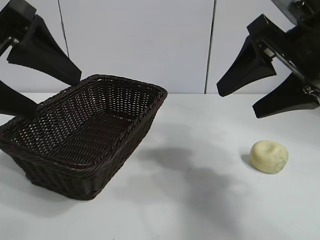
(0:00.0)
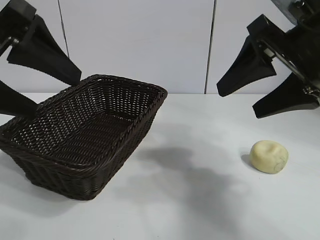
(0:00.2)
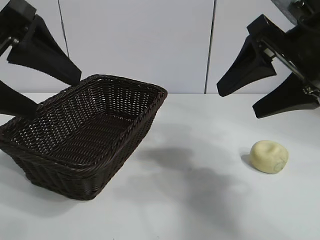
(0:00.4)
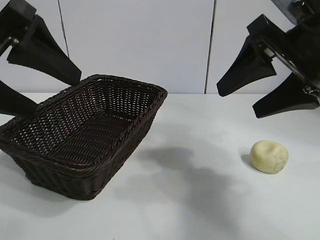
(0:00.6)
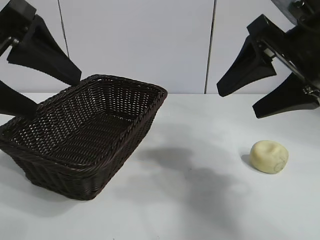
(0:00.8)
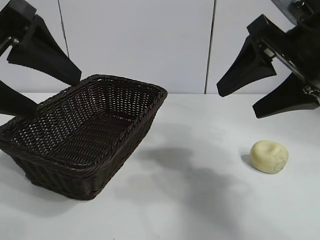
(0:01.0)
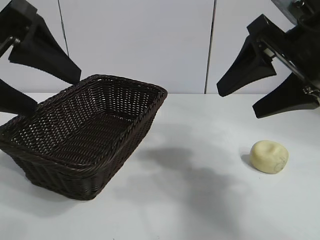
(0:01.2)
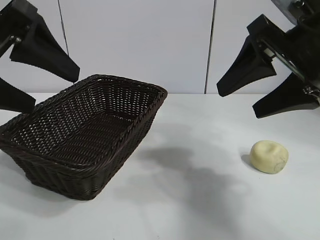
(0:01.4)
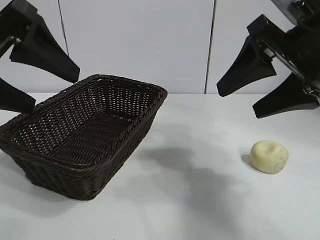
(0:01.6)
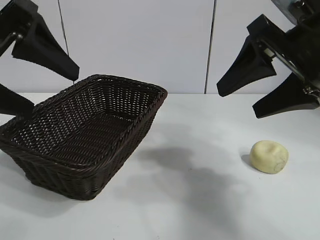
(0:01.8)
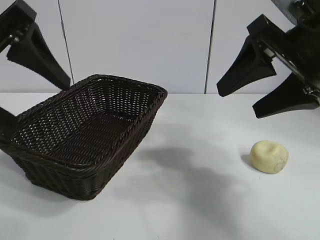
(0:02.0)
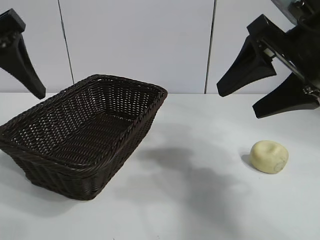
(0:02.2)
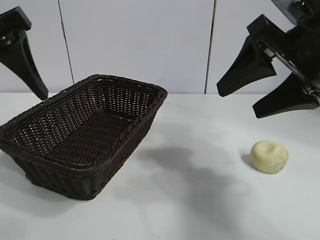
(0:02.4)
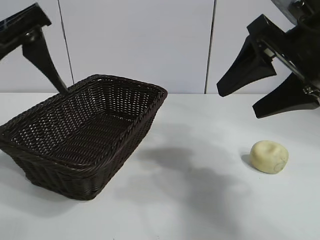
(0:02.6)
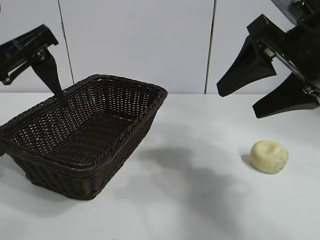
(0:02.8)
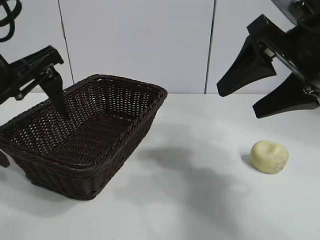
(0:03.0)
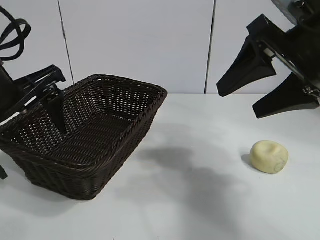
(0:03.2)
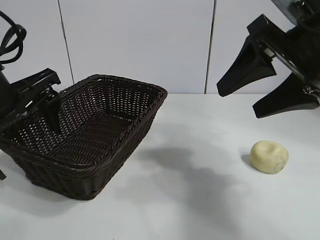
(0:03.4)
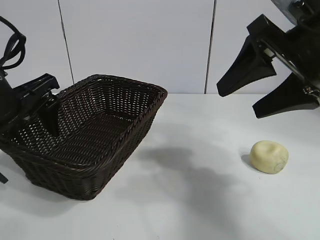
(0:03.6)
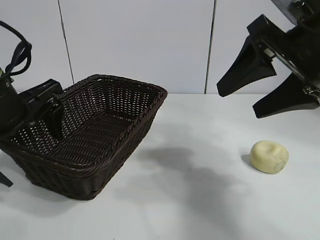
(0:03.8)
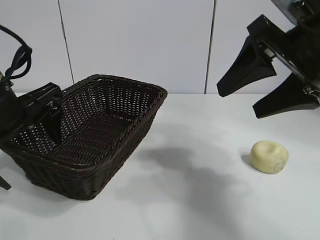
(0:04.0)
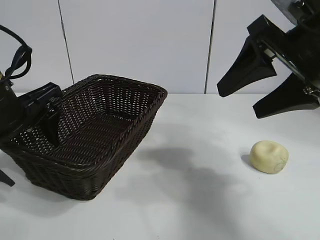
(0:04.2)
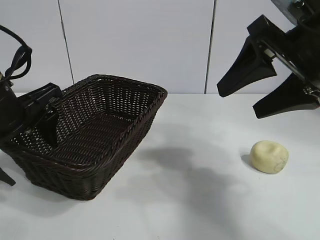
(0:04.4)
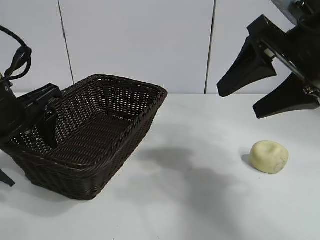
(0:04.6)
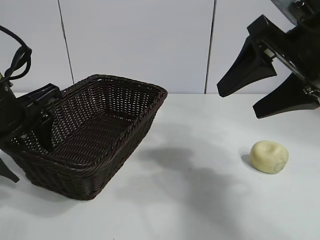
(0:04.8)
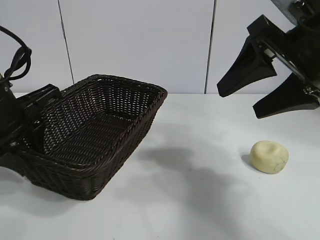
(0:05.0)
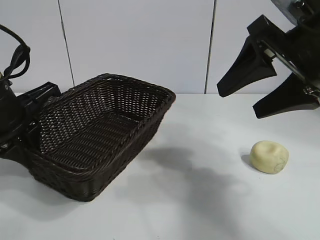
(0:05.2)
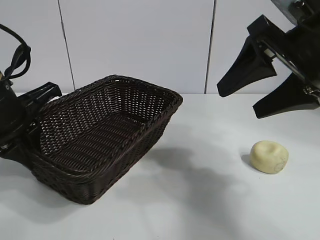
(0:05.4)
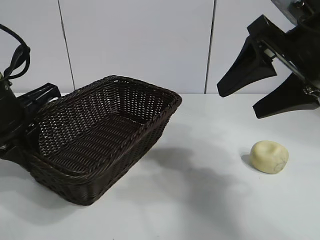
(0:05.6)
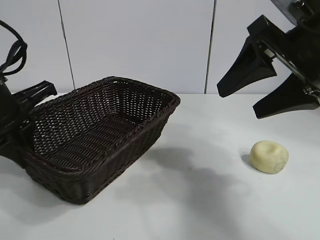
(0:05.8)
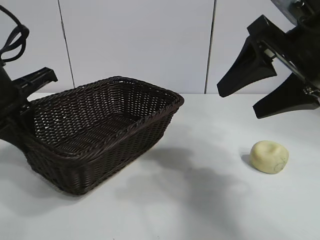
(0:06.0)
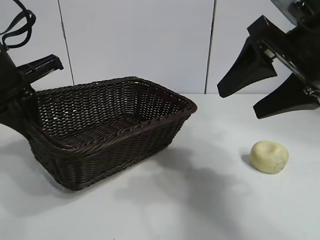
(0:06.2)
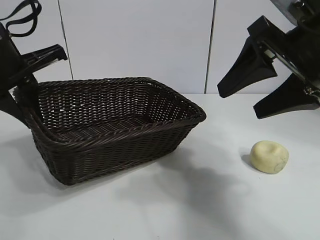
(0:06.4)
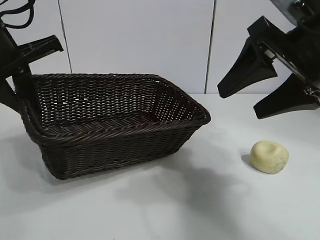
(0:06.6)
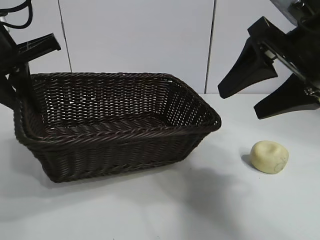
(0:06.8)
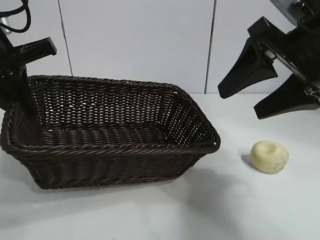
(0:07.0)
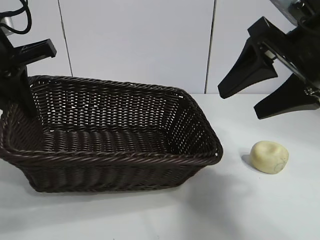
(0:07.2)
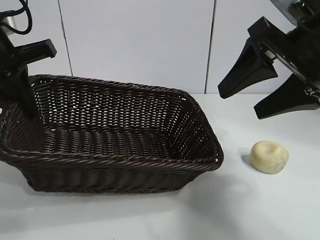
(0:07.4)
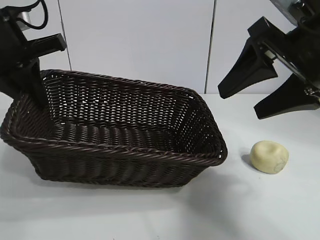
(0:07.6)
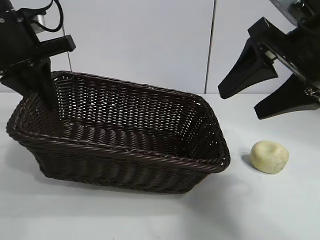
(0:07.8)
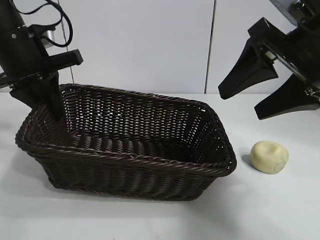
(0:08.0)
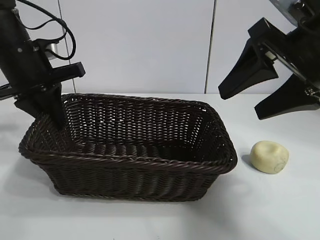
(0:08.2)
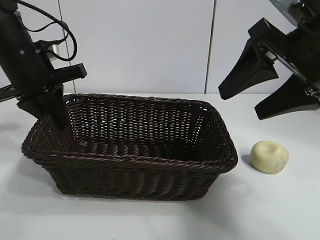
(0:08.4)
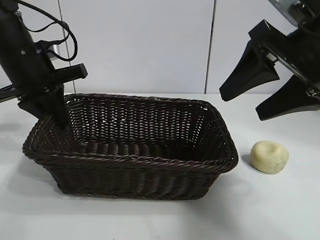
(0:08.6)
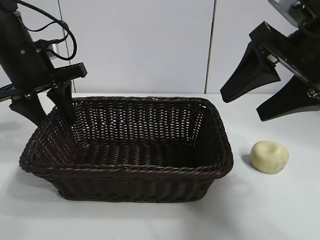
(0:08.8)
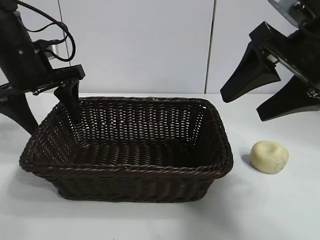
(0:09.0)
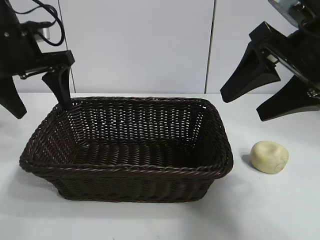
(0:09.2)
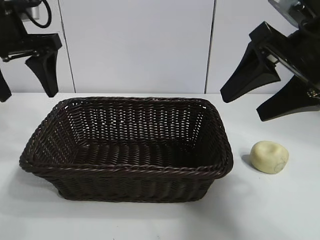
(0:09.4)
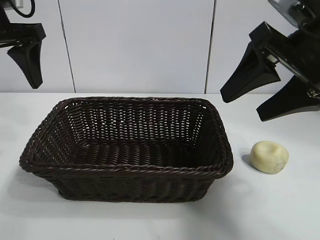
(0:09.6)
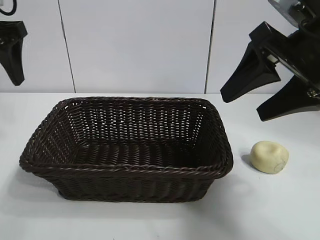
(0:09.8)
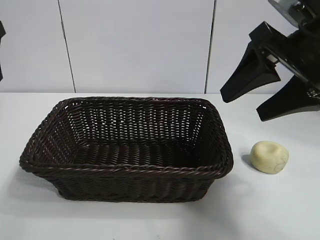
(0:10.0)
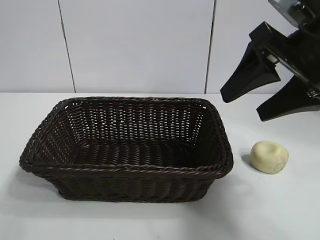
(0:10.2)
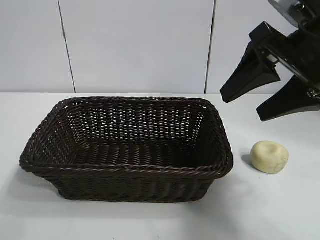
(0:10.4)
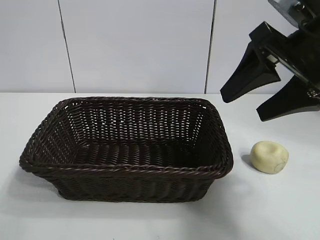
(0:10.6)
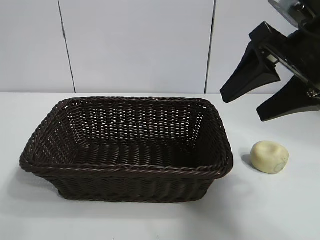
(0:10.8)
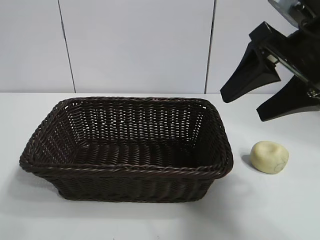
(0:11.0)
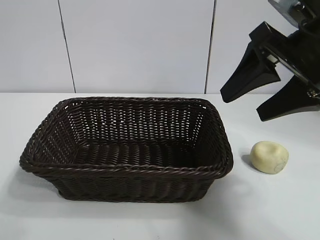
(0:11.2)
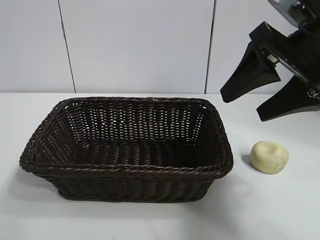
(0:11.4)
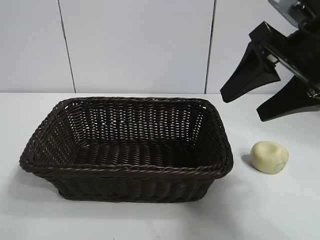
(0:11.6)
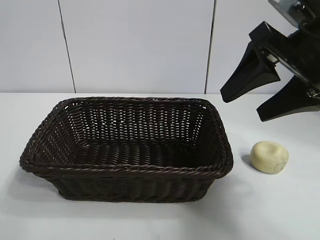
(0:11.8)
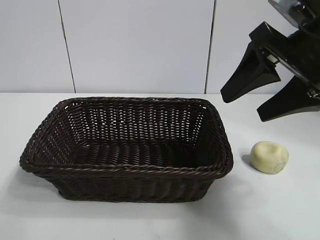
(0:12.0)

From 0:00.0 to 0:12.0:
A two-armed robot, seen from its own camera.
Task of the whole recording: pick up the egg yolk pastry and put it into the basket.
Step, from 0:01.2 to 0:05.0: Grasp the basket with left gripper.
Step, from 0:05.4 to 0:09.0: Place the basket in the center of view with left gripper.

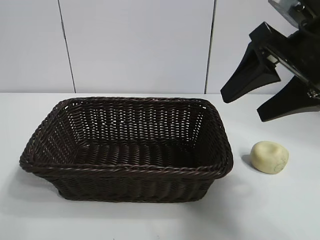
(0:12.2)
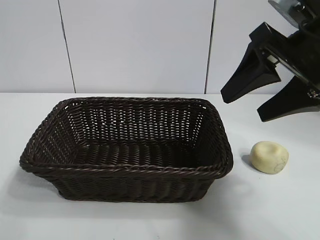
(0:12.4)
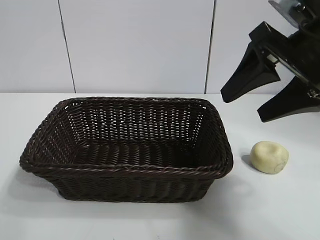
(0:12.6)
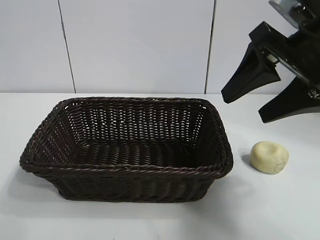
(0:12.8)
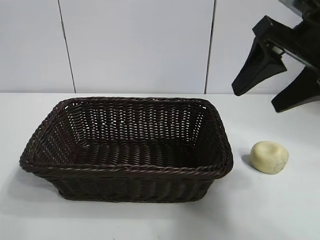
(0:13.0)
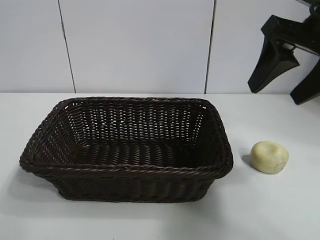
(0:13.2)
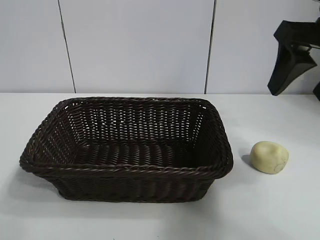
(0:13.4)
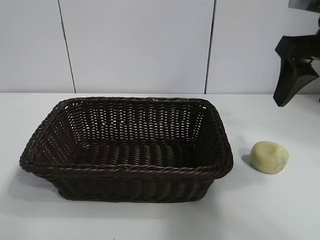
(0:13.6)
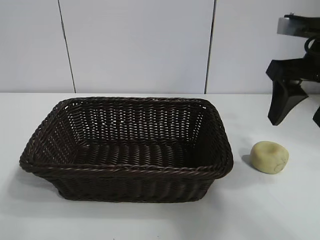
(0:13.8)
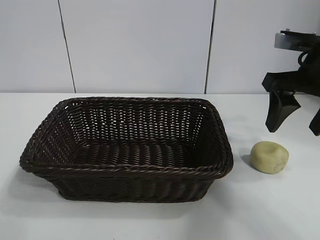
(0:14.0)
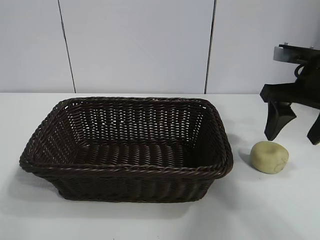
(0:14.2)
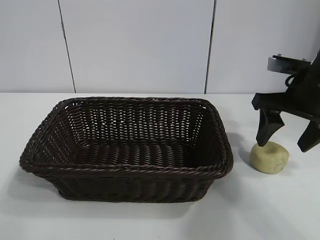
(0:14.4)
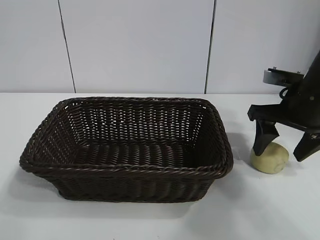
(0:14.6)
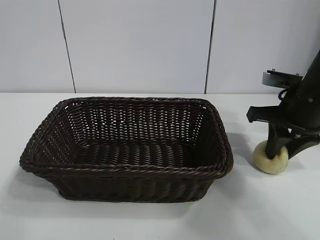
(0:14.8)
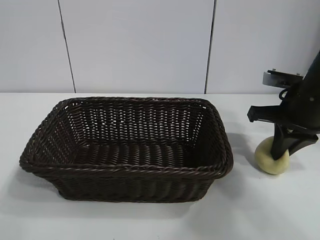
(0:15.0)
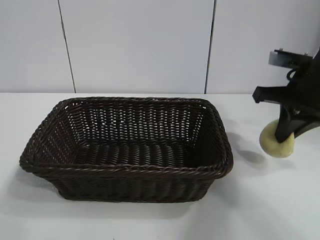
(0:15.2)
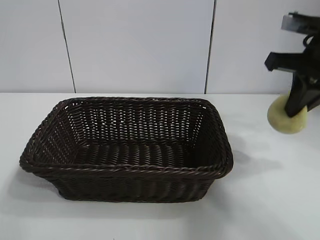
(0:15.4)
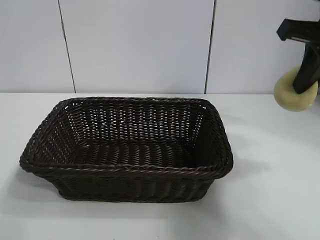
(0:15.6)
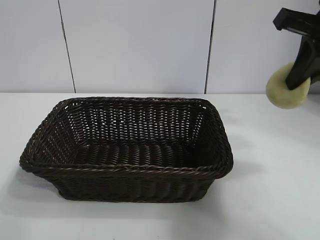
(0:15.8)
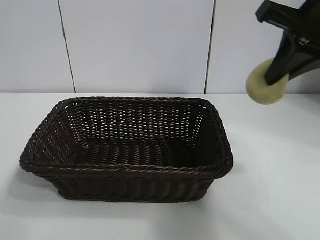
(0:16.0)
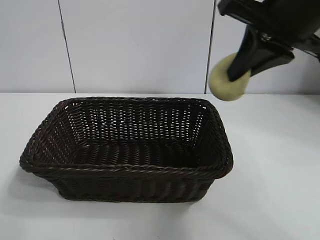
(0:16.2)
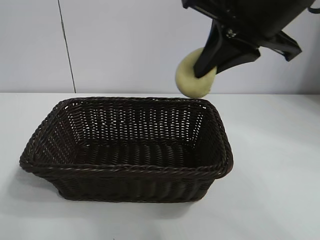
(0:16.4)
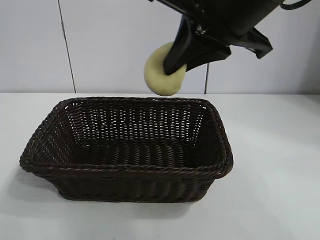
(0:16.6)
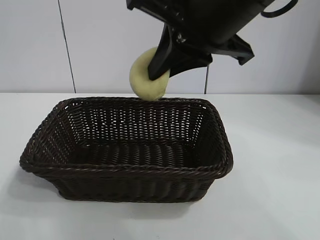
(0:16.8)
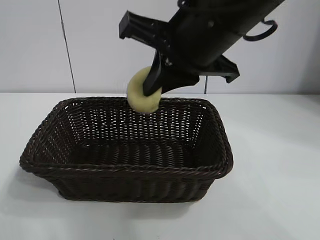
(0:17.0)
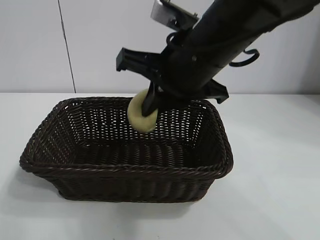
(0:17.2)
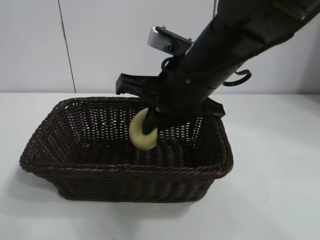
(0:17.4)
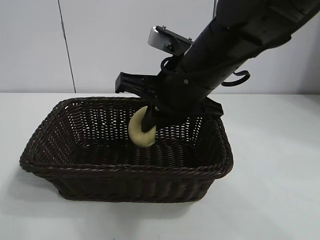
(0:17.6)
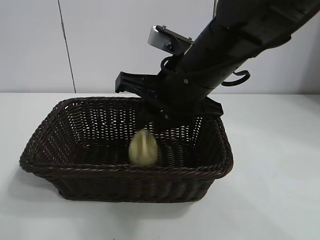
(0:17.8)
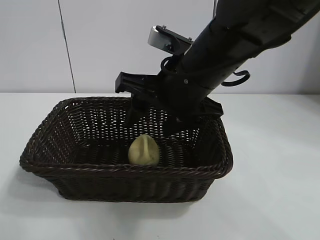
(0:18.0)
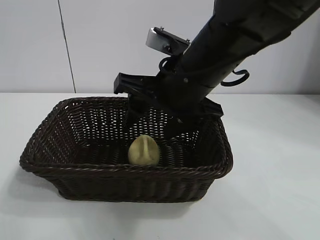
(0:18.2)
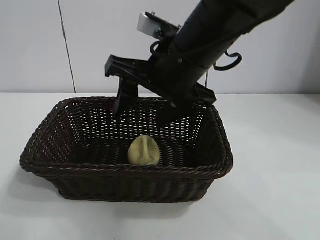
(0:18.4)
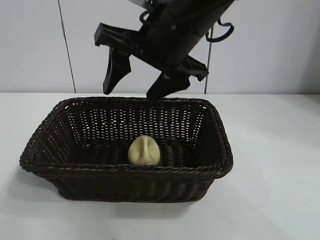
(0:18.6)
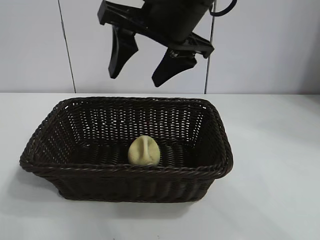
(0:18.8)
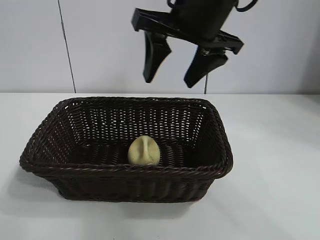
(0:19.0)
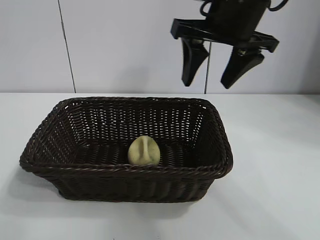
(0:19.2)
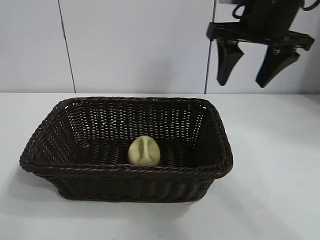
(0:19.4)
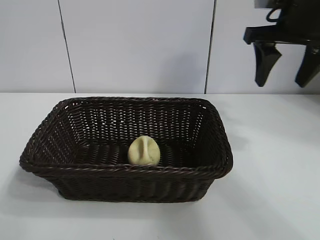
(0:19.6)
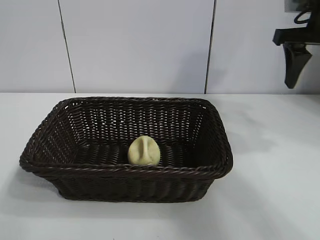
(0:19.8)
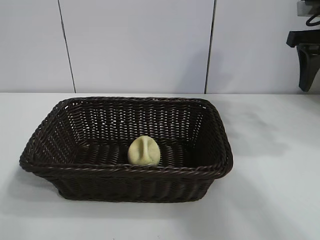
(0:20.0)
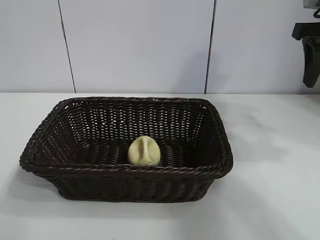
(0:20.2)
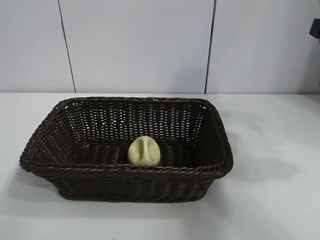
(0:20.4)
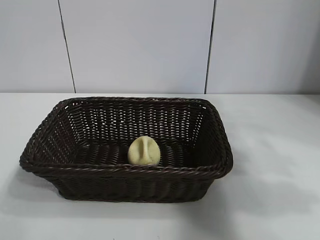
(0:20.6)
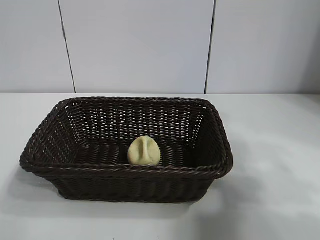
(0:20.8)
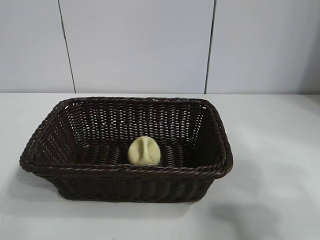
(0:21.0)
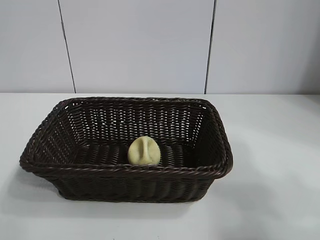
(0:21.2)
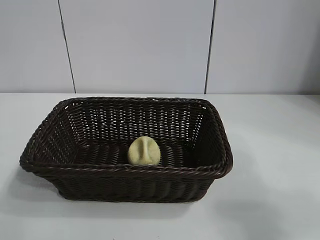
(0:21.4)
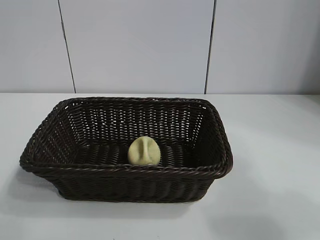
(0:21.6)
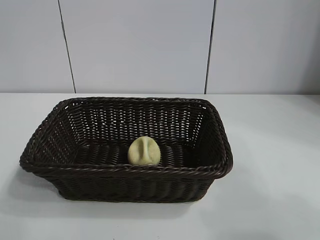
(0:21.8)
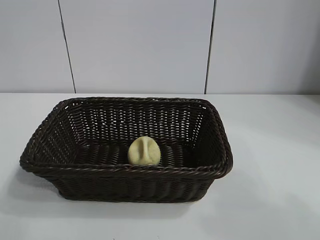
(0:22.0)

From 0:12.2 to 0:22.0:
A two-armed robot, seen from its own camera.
Task of the whole recording: pick up the egg yolk pastry and put it into the basket.
Step, from 0:12.2 to 0:14.8: Grasp egg yolk pastry with right gripper.
Step, from 0:15.2 to 0:18.2: Place the egg yolk pastry in the basket with right gripper.
